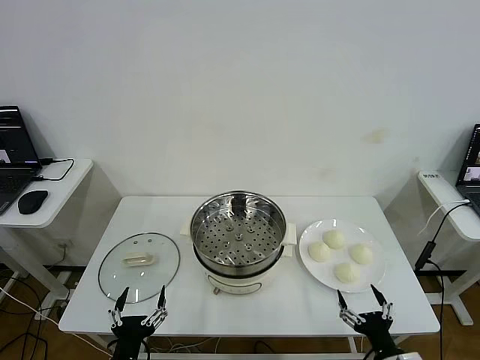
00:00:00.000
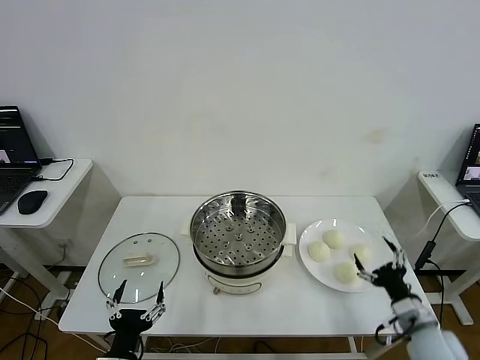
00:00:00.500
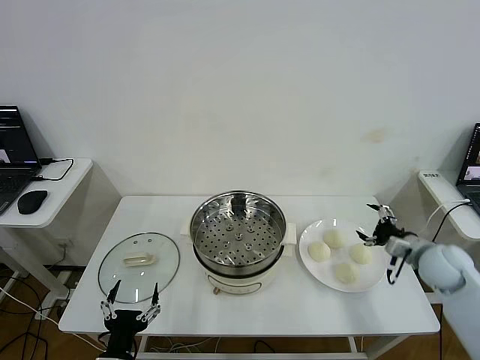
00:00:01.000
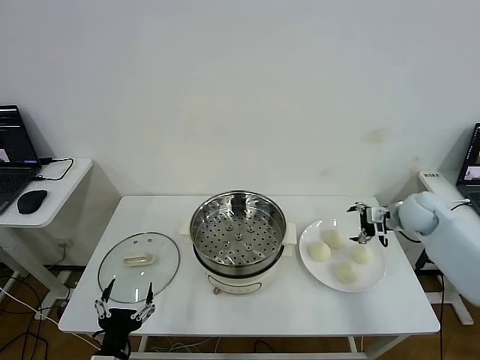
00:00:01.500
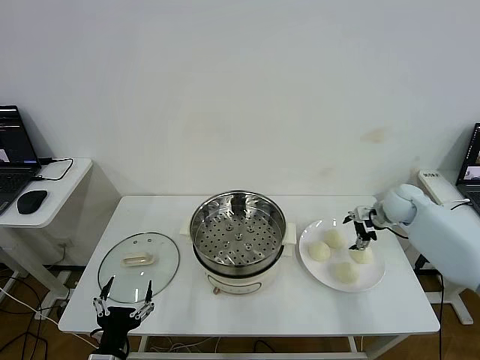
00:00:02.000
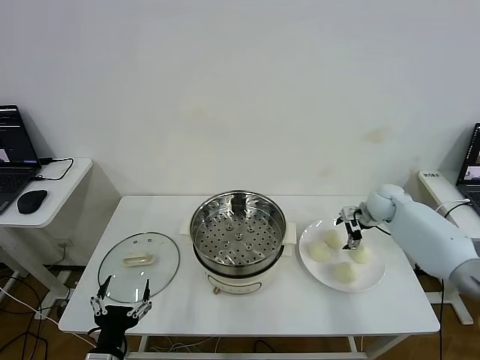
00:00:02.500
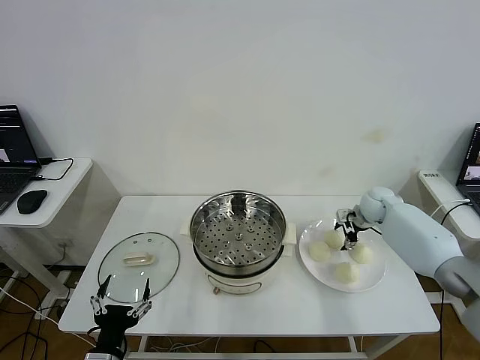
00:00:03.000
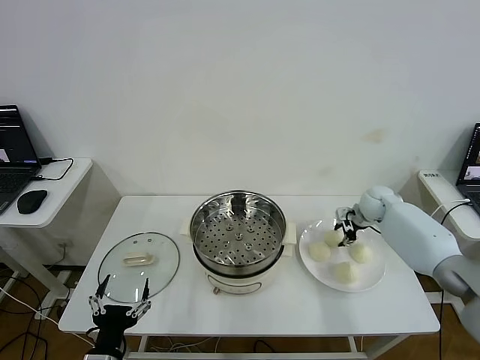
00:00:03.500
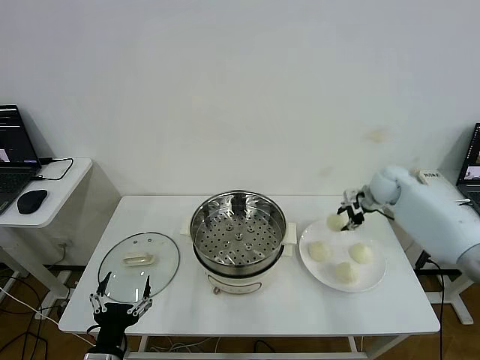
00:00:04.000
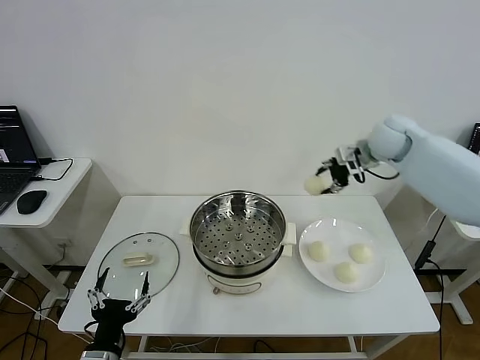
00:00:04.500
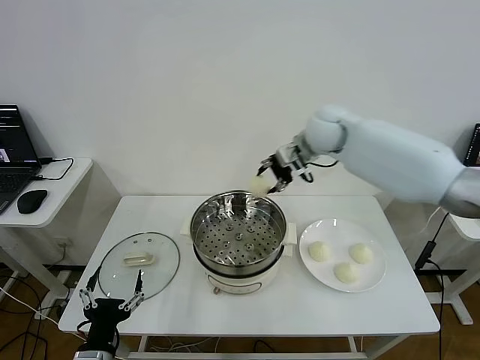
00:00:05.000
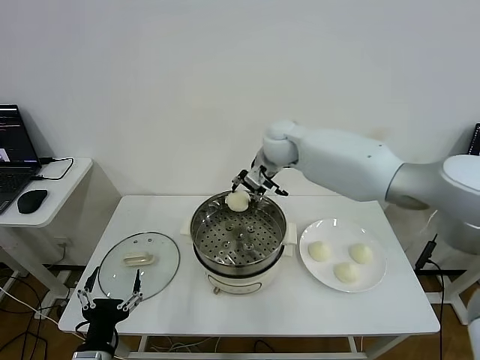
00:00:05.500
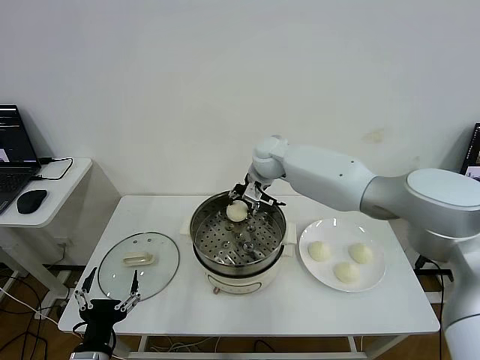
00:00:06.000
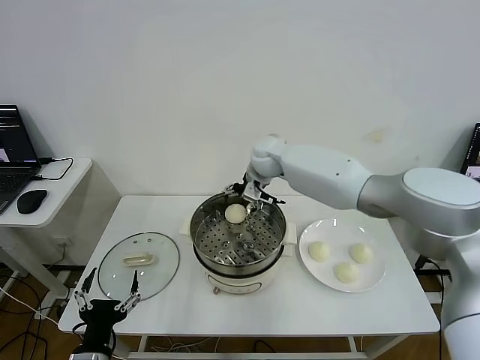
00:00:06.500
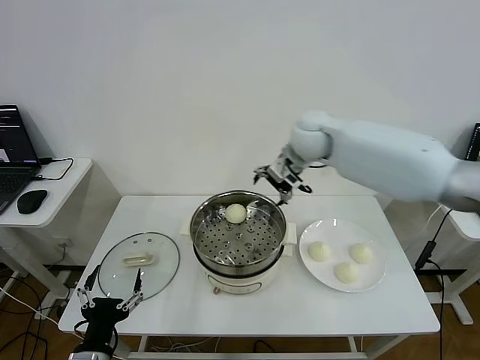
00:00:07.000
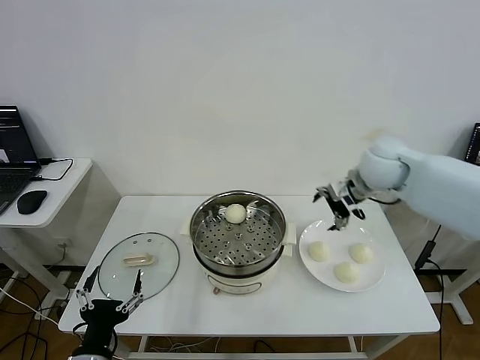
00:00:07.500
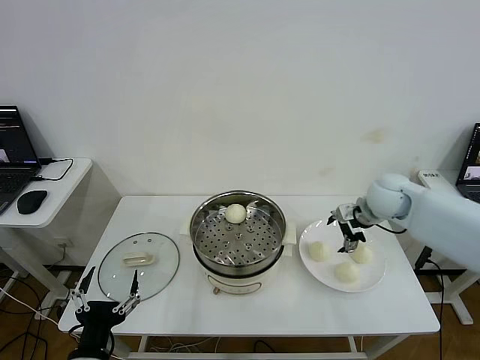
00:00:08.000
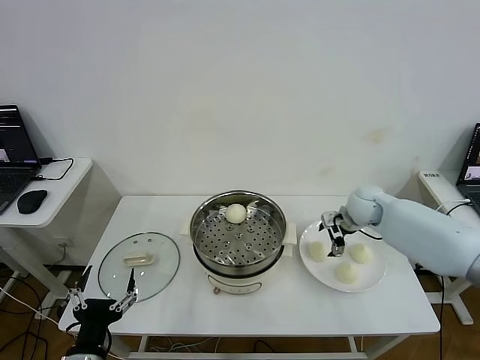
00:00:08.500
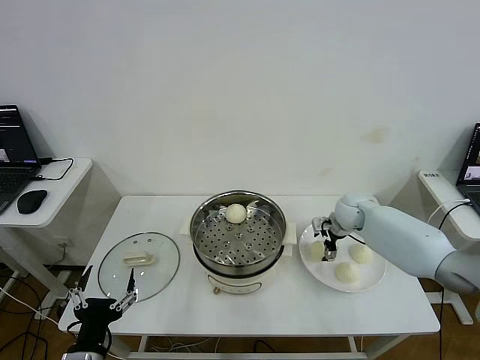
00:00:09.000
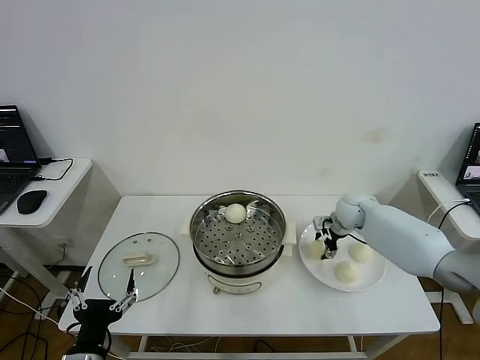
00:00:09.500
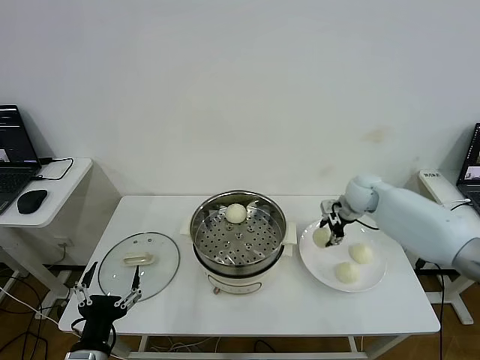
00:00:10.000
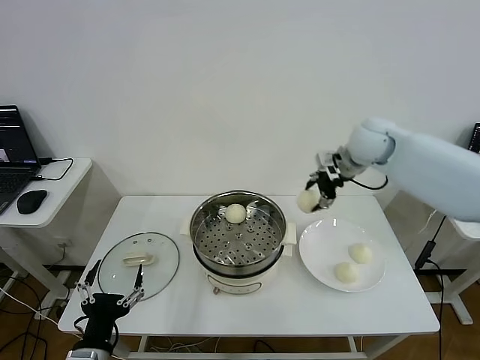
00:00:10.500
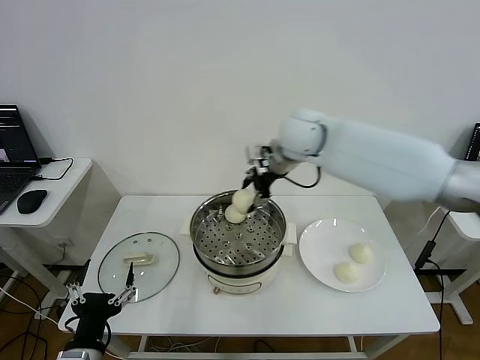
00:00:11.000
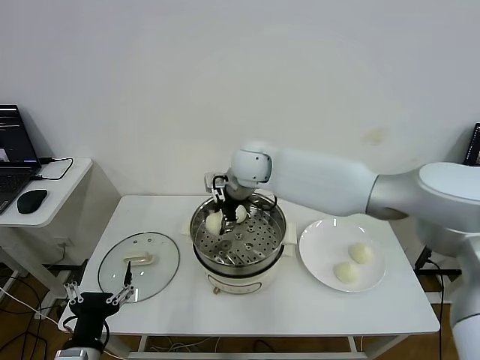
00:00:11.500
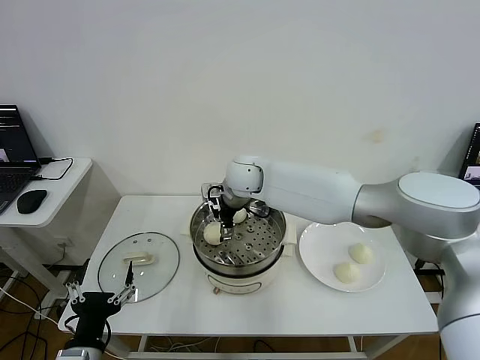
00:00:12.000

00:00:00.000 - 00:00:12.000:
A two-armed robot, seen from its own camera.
Step, 00:00:00.000 - 00:00:03.000: Grasp the baozi in the plate with right gripper.
Step, 00:00:03.500 - 00:00:06.000: Place the baozi on the steamer with right gripper.
Step, 00:00:06.500 - 00:00:09.000: Grasp the baozi in the plate with right gripper.
Step, 00:00:09.500 - 00:00:12.000: Place the baozi on the steamer with right gripper.
00:00:02.000 - 00:00:04.000: The right gripper travels upward by about 5 cm, and closes its fingers.
00:00:04.000 - 00:00:06.000: The right gripper goes roughly 30 cm to the left.
00:00:06.000 - 00:00:08.000: The right gripper moves to the right, approximately 25 cm, and opens.
00:00:08.000 - 00:00:10.000: The right gripper is displaced forward by roughly 5 cm, travels downward and back again, roughly 10 cm each way, and closes up.
00:00:10.000 - 00:00:12.000: The right gripper is displaced to the left by some 30 cm, and opens.

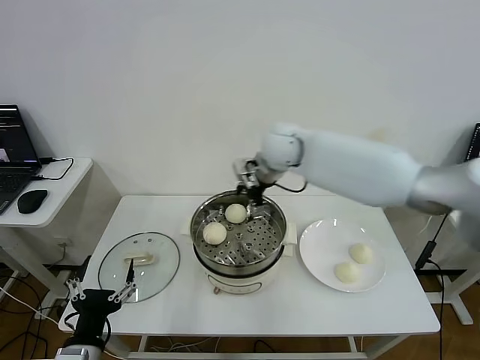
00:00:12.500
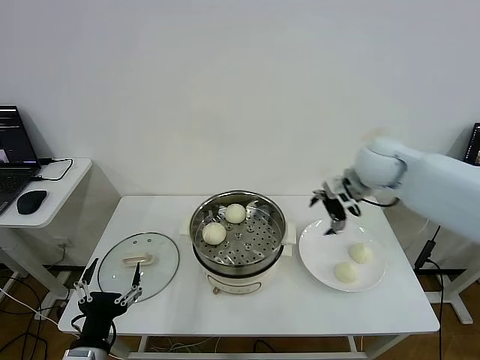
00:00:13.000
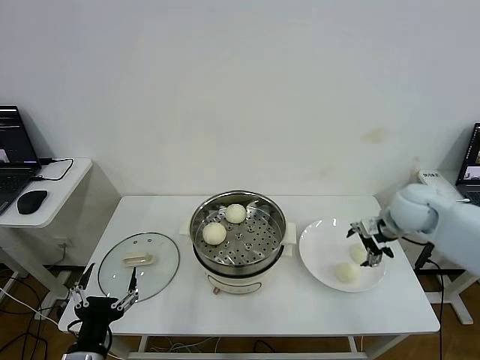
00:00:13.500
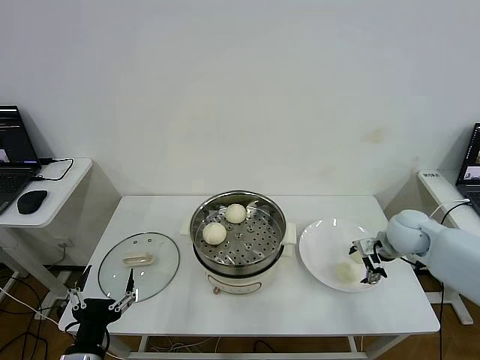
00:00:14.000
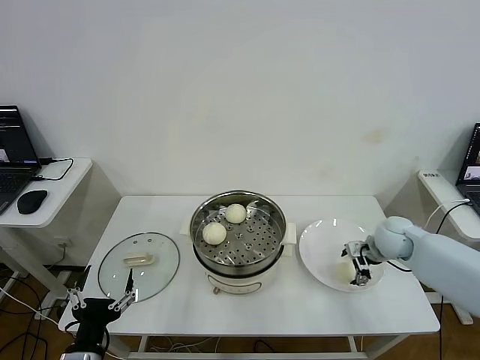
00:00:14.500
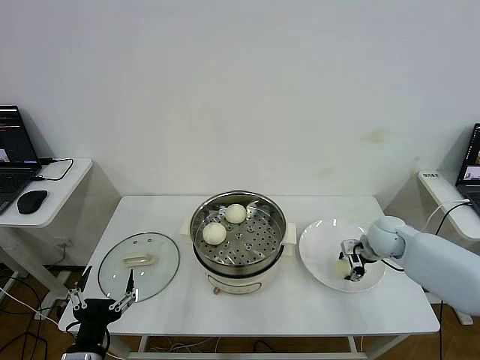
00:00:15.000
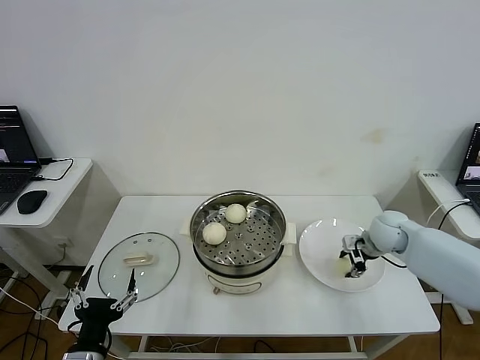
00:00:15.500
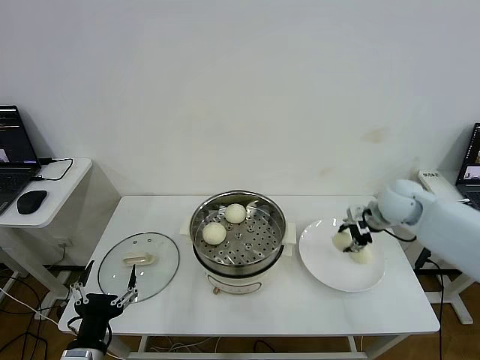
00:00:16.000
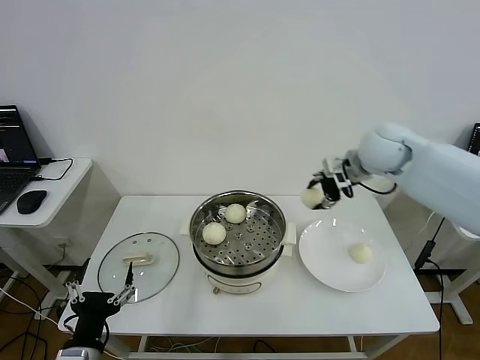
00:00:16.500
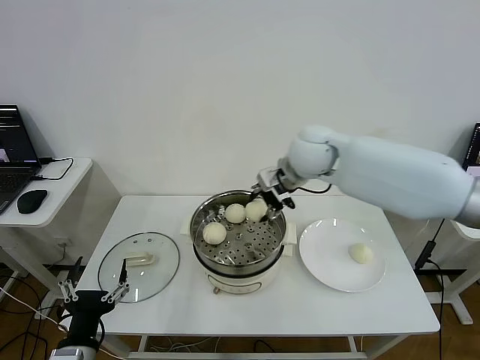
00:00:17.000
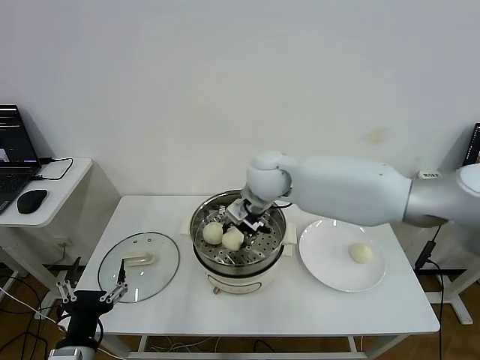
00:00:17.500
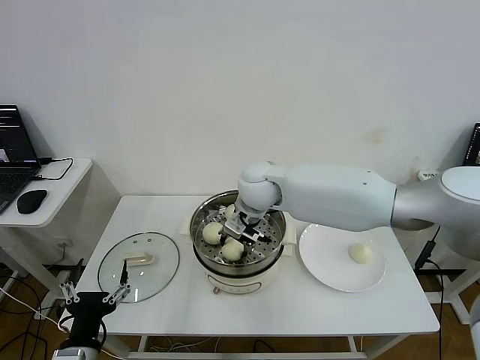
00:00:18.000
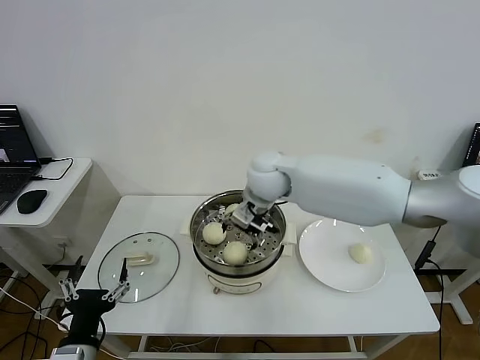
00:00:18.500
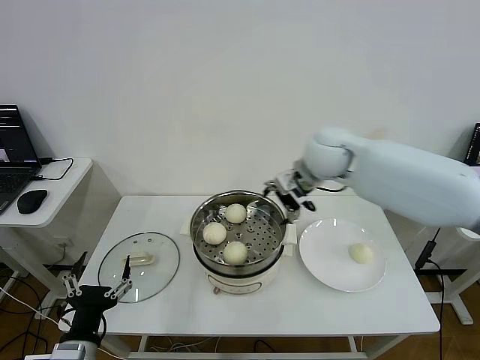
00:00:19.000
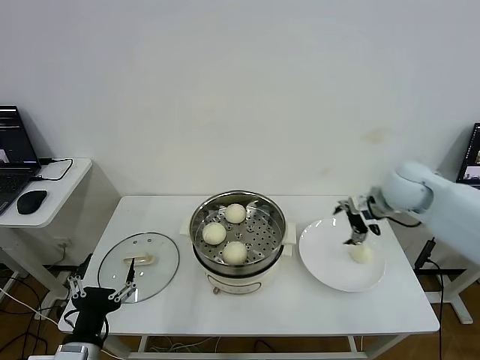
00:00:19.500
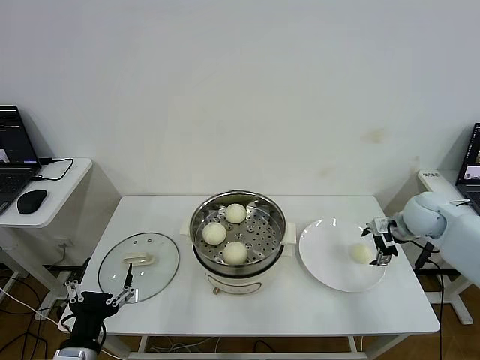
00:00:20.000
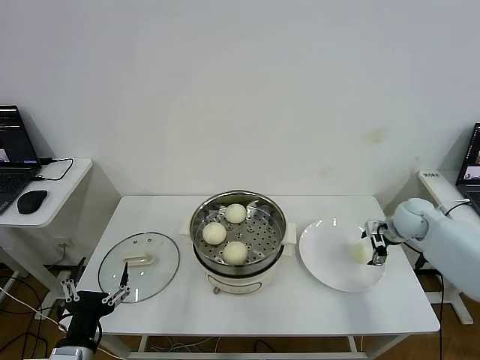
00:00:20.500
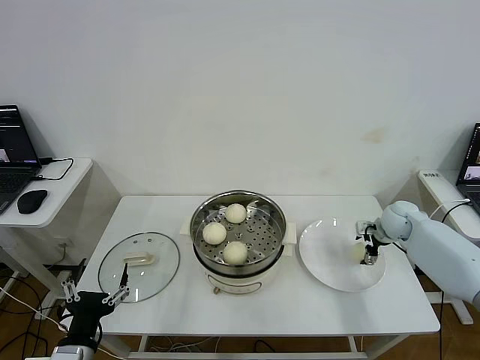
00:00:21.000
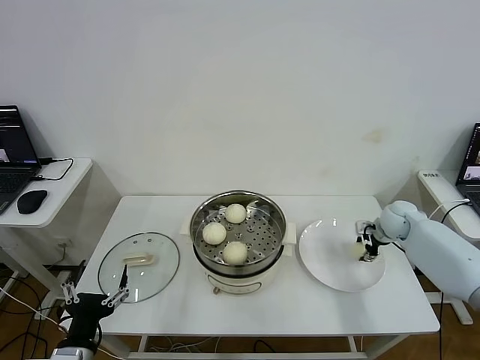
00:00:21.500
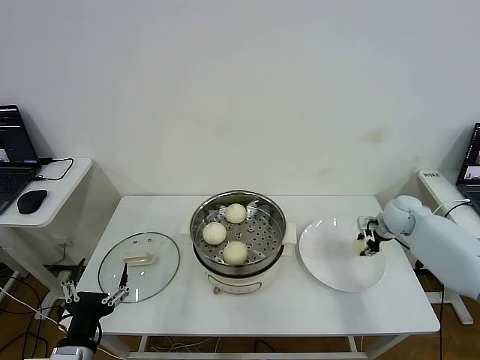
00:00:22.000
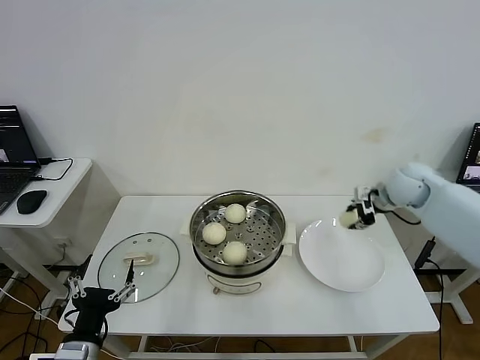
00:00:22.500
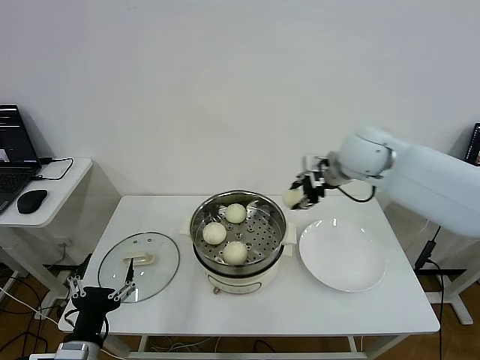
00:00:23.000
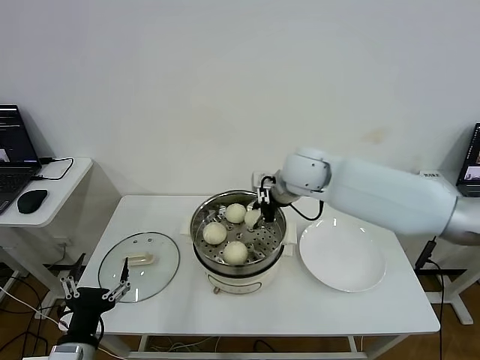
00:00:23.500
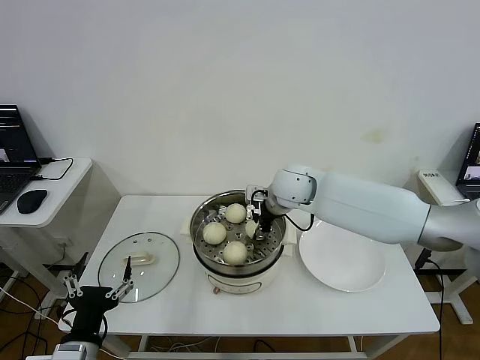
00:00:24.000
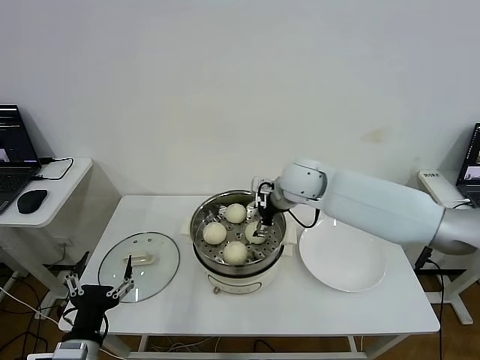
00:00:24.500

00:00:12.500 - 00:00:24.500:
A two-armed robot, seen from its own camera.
Step, 00:00:12.500 - 00:00:15.000: Grasp the baozi in the plate with right gripper.
Step, 00:00:15.500 - 00:00:18.000: Place the baozi on the steamer with right gripper.
Step, 00:00:18.500 - 00:00:21.000: Grasp the baozi in the plate with right gripper.
Step, 00:00:21.500 - 00:00:24.000: Place the baozi on the steamer with right gripper.
00:00:12.500 - 00:00:14.500: The right gripper heads to the right and downward, covering some 35 cm.
00:00:14.500 - 00:00:16.500: The right gripper goes some 25 cm upward and to the left, and closes up.
00:00:16.500 - 00:00:18.500: The right gripper heads to the left, covering about 20 cm, and opens its fingers.
00:00:18.500 - 00:00:20.500: The right gripper moves to the right and downward, some 40 cm.
00:00:20.500 - 00:00:22.500: The right gripper shifts some 15 cm upward and to the left, and closes up.
00:00:22.500 - 00:00:24.500: The right gripper heads to the left, covering approximately 25 cm, and opens its fingers.

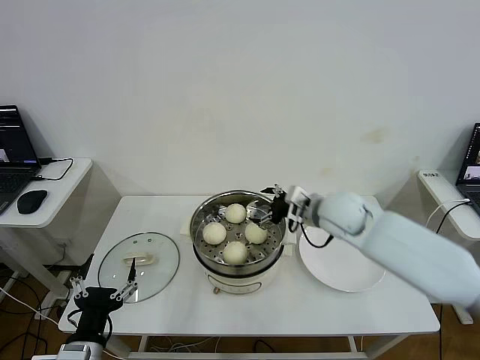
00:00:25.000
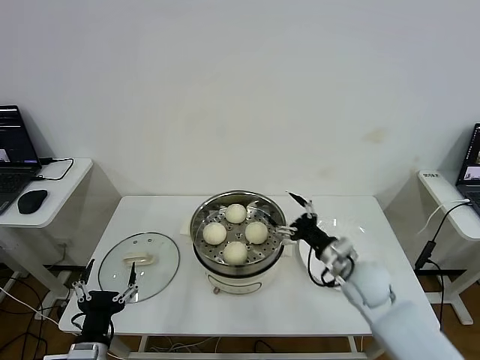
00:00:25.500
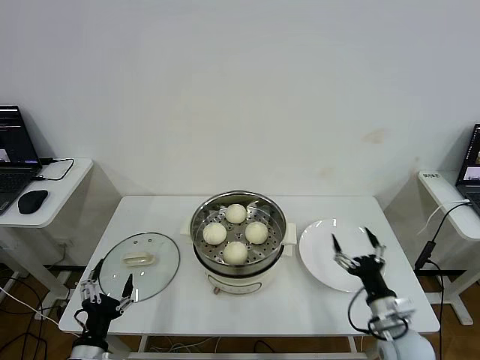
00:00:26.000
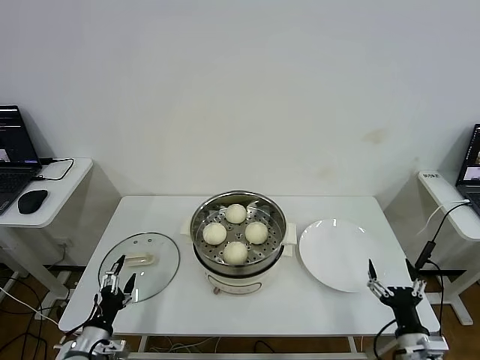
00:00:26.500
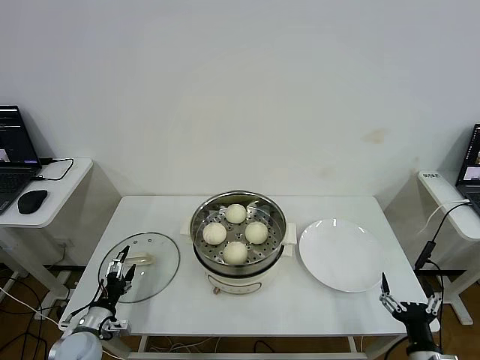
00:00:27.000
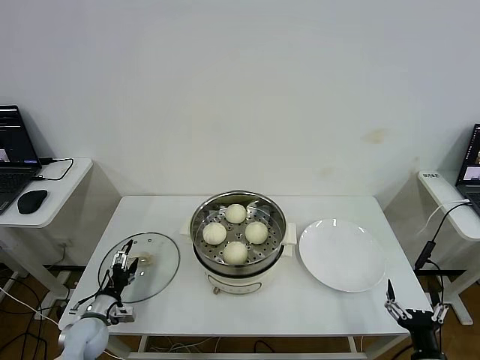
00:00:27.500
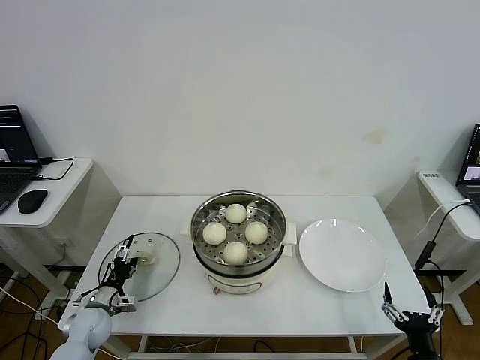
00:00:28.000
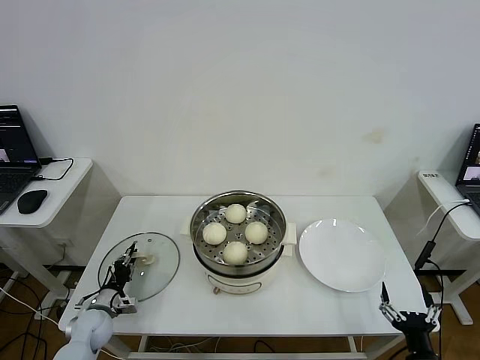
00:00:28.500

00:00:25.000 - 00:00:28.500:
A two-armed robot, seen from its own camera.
00:00:25.000 - 00:00:27.000: The left gripper goes about 20 cm downward, forward and to the left, while the right gripper is displaced backward, downward and to the right by approximately 40 cm.
00:00:27.000 - 00:00:28.500: The left gripper heads forward, covering about 5 cm, and closes its fingers.
